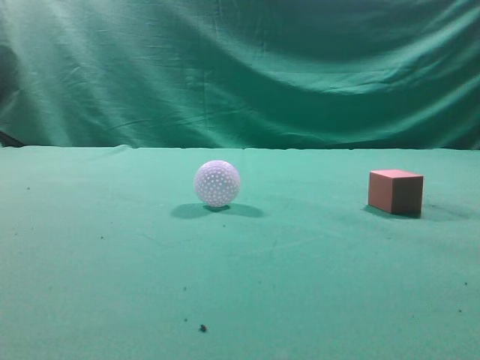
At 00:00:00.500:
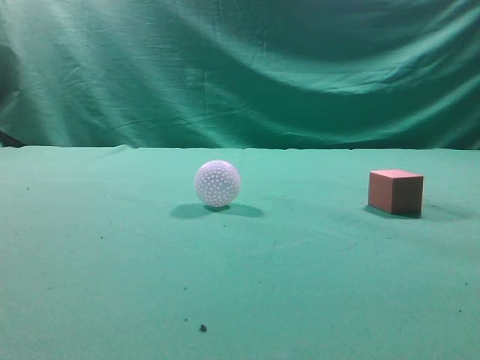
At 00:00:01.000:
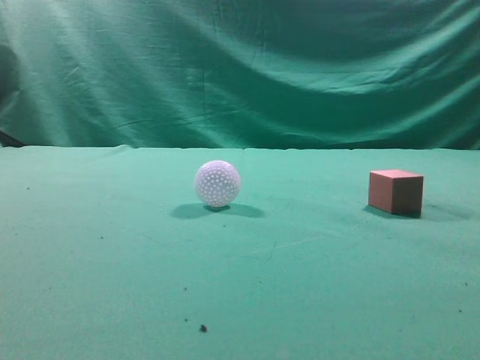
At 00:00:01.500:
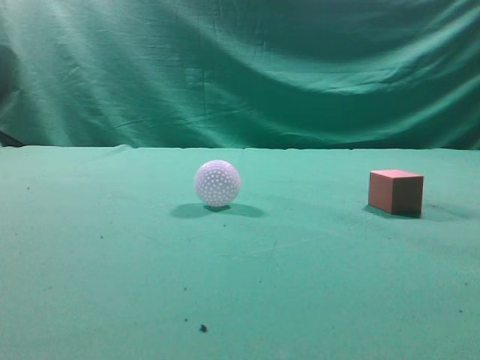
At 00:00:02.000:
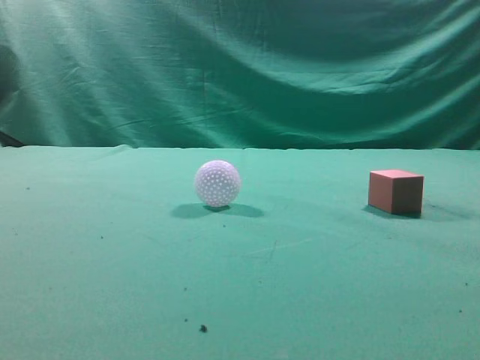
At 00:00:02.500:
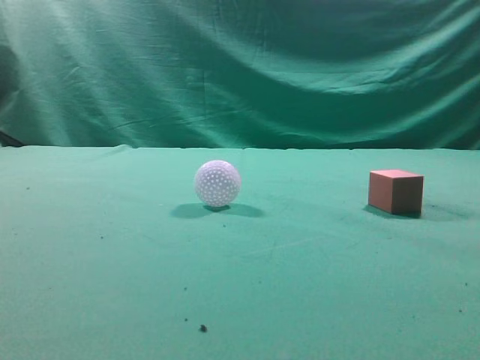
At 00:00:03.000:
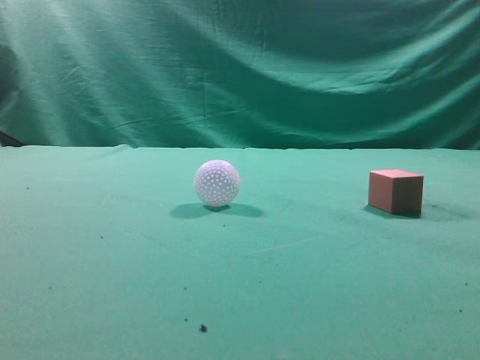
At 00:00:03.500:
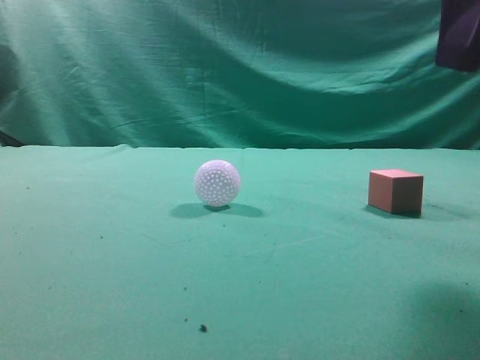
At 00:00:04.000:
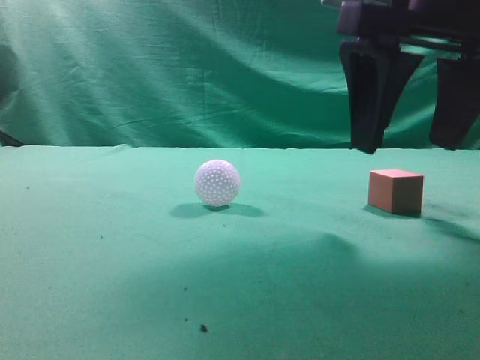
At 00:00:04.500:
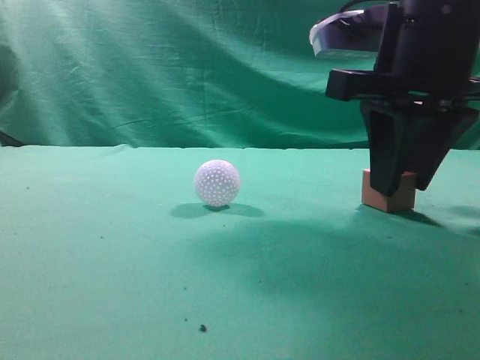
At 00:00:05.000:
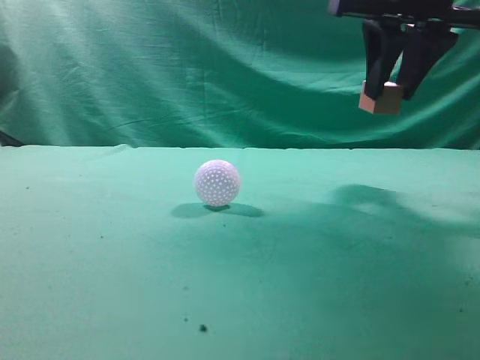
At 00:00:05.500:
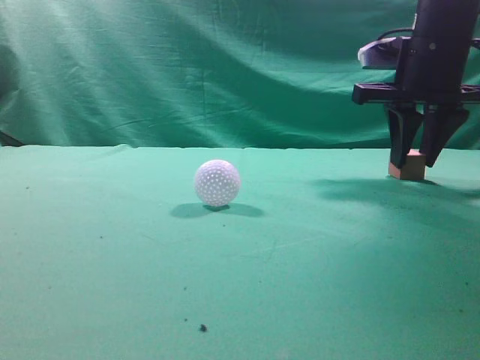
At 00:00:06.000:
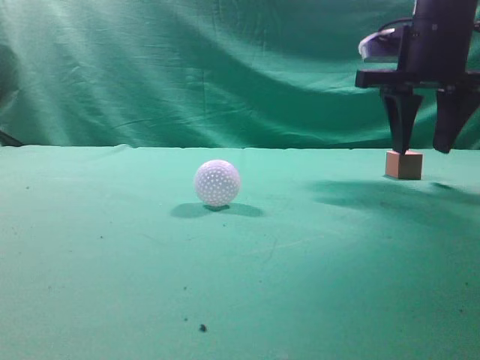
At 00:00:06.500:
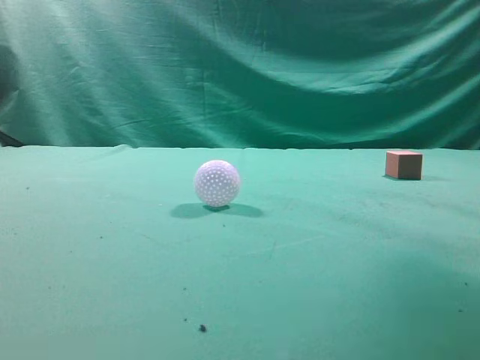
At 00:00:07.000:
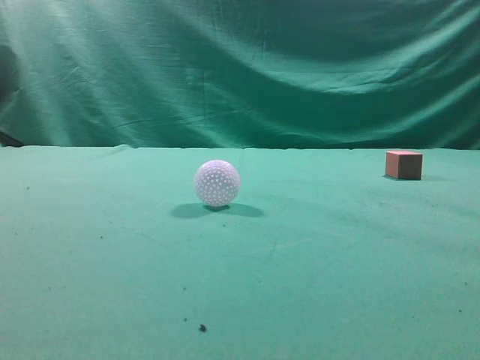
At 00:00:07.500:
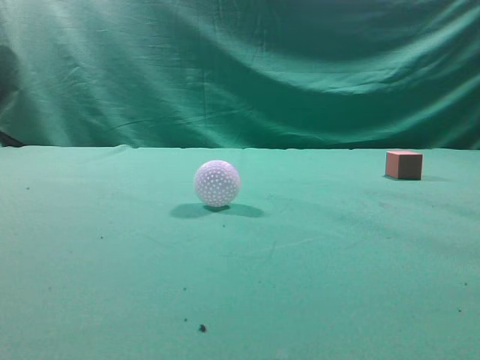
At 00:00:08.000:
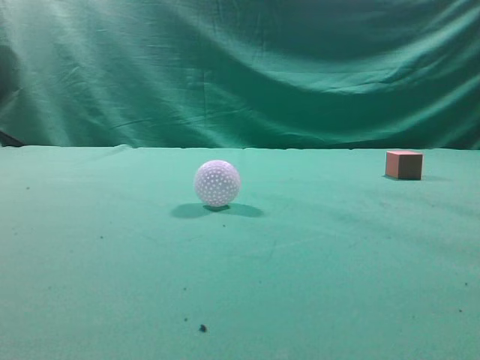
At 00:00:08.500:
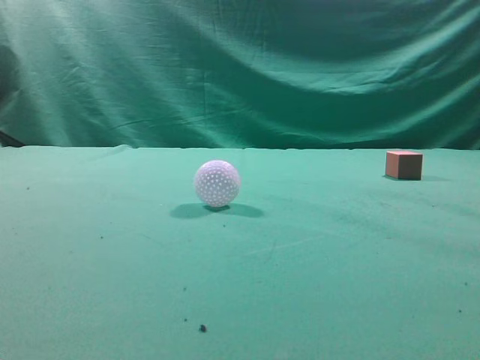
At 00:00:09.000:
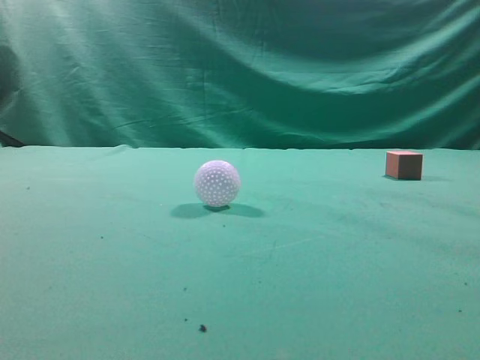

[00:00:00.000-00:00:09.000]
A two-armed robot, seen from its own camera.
Task of the whole recording: pick up the cube block and place it in another position on the table.
Step, 00:00:00.000 to 00:00:04.500: Pick up the small cube.
Step, 00:00:05.000 to 00:00:06.000: Place the small cube on the ahead of the table.
00:00:02.000 to 00:00:04.500: The right gripper goes some 30 cm forward, to the left and downward, and opens up.
00:00:04.500 to 00:00:07.000: The right gripper moves upward, to the right and backward, approximately 25 cm, and closes up.
